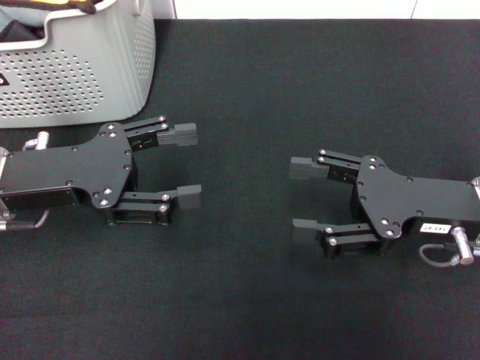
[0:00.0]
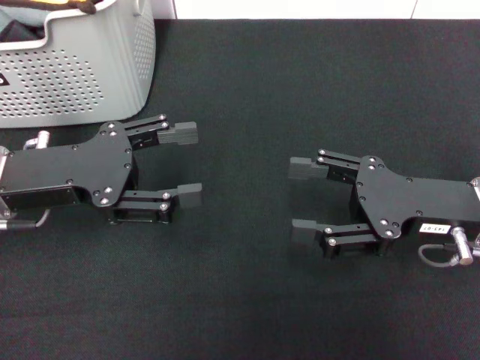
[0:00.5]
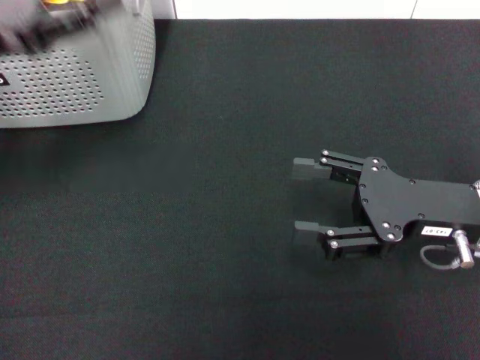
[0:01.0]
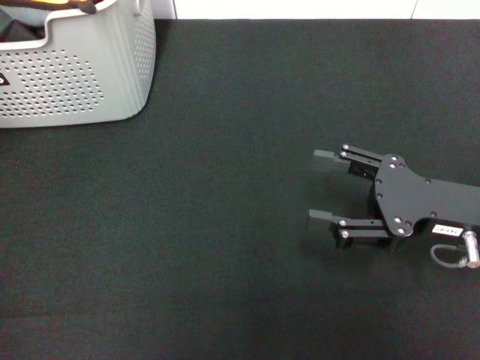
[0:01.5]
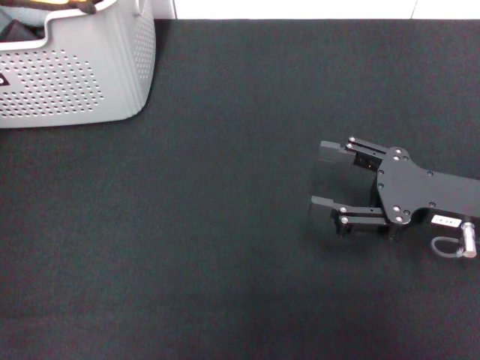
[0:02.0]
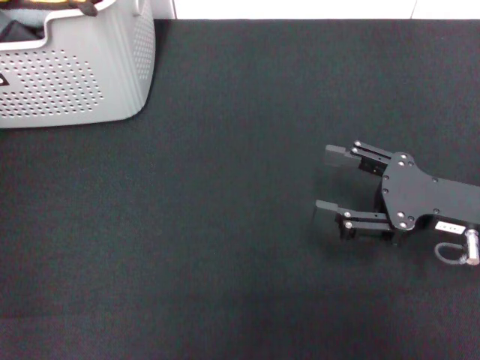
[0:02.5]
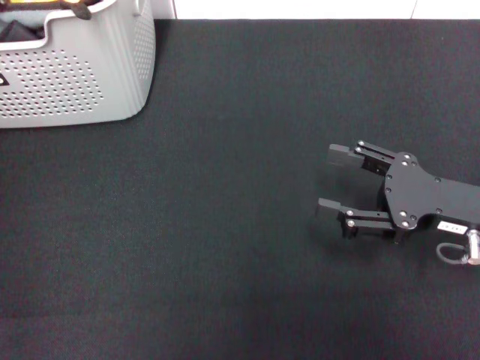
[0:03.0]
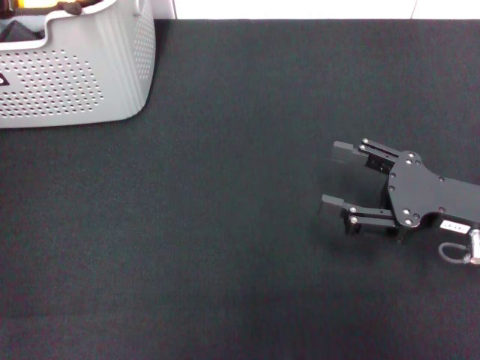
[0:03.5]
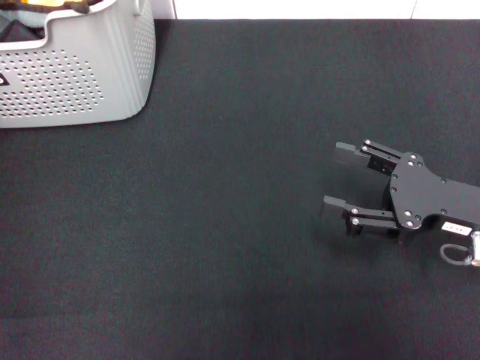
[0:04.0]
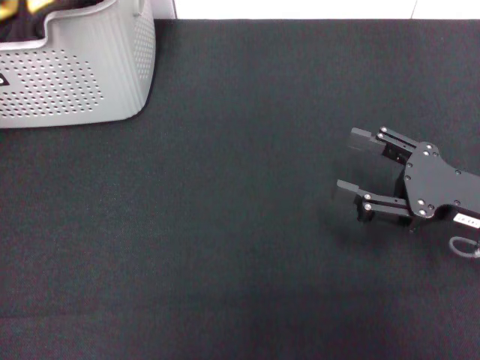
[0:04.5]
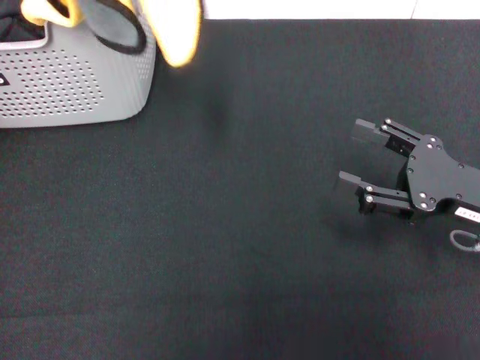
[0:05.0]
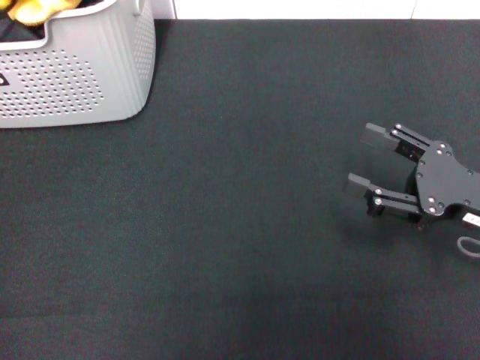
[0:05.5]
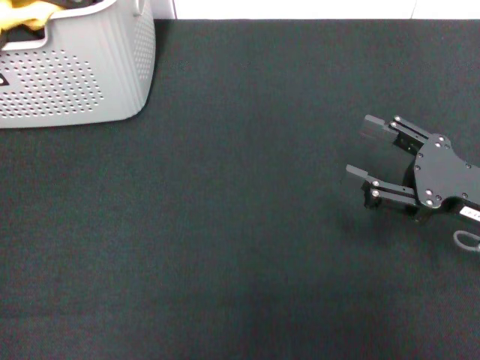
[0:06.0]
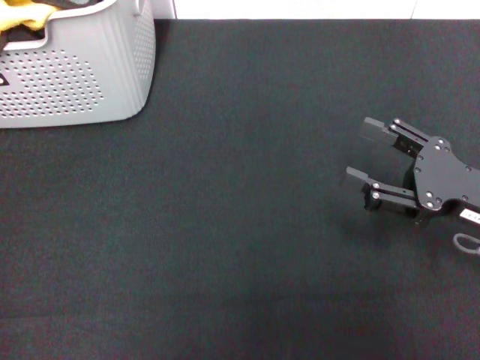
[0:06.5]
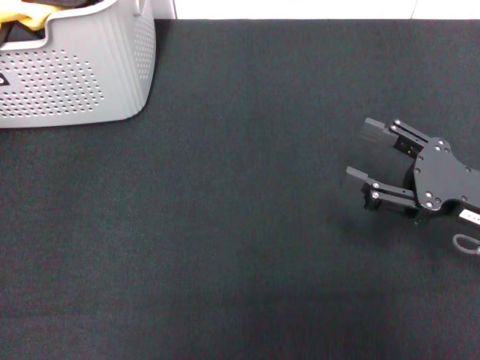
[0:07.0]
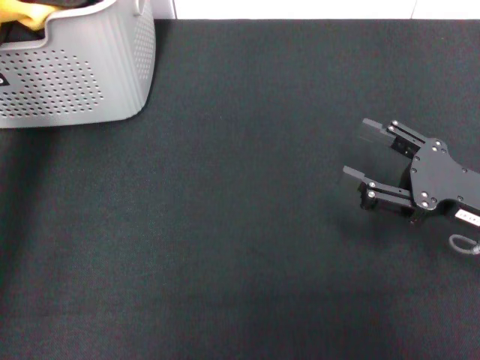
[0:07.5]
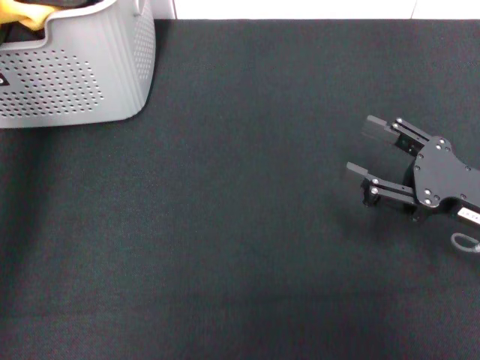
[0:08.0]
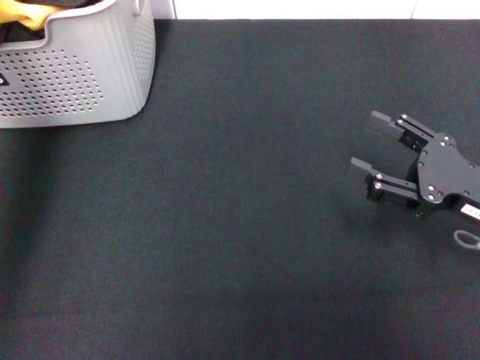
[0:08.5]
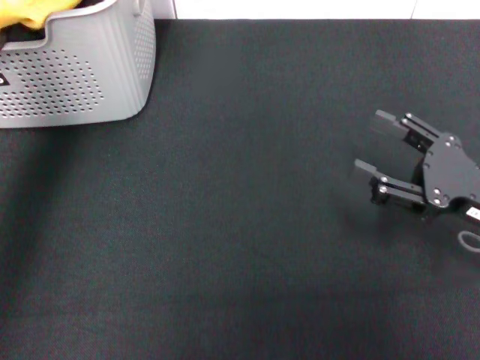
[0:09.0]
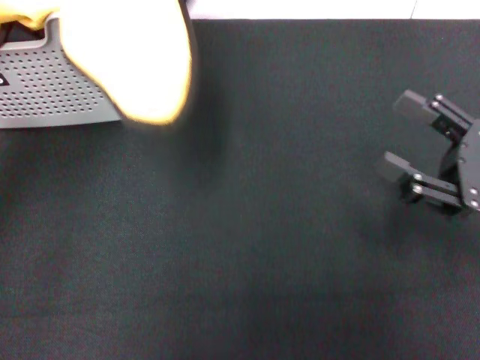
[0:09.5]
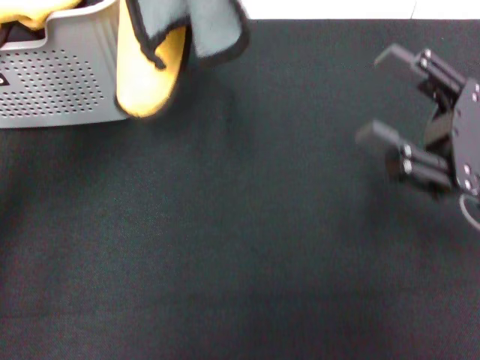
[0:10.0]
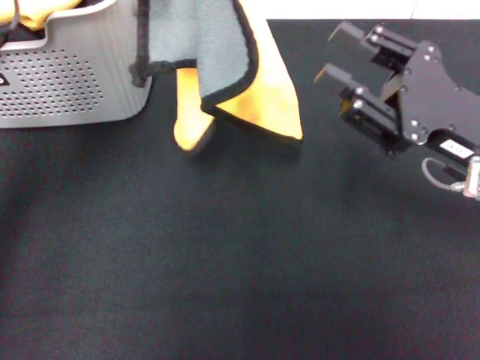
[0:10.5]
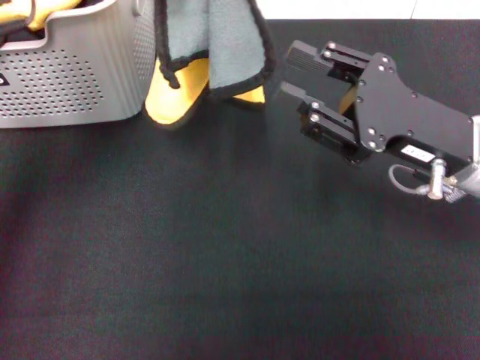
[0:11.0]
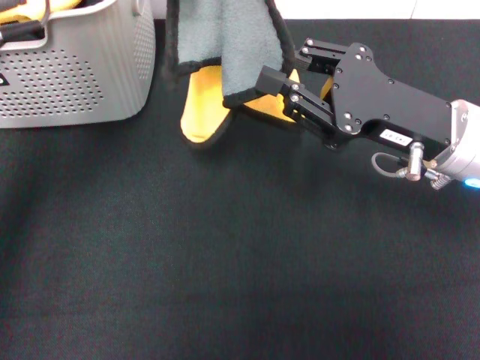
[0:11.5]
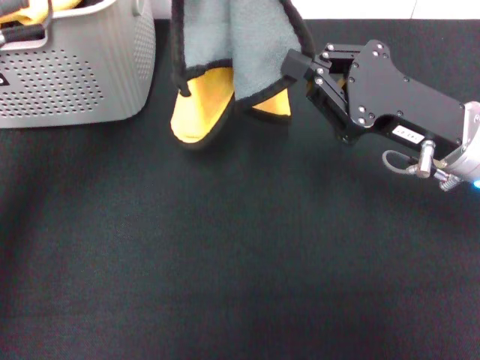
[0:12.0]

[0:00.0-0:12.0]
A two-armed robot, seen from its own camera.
Task of the whole recording: pick up the towel from the storage box and lay it flat on the black tablecloth.
Step, 0:00.0 to 0:04.0: Pick up a towel with the left gripper.
0:00.0 to 0:02.0: The left gripper is displaced upward, forward and to the left by some 20 cm.
0:02.0 to 0:04.0: The left gripper closes its fingers.
0:06.0 to 0:08.0: The left gripper moves to the right, some 10 cm, and opens up.
0:08.0 to 0:10.0: The left gripper heads upward, backward and to the right, covering roughly 10 cm, and closes up.
0:10.0 to 0:12.0: The right gripper is displaced to the left by some 5 cm, and closes its fingers.

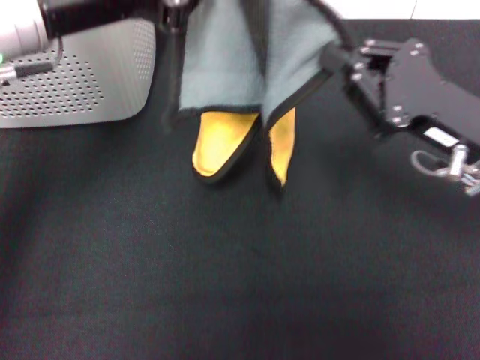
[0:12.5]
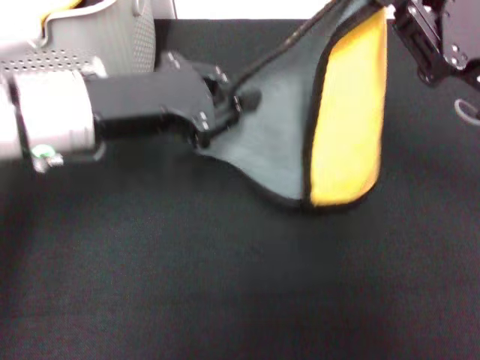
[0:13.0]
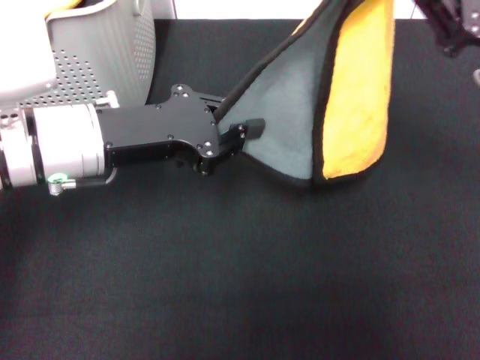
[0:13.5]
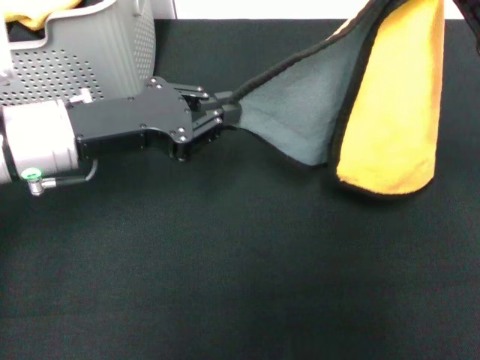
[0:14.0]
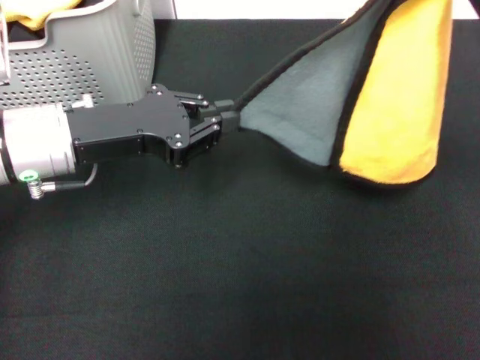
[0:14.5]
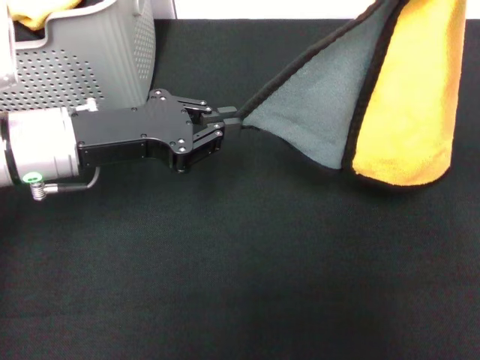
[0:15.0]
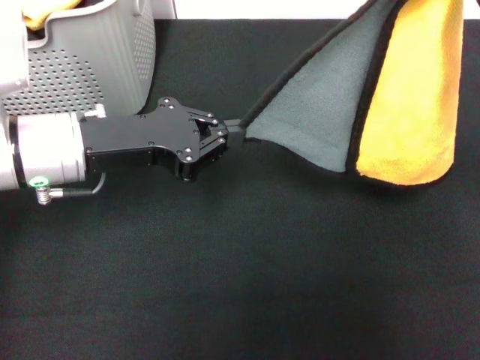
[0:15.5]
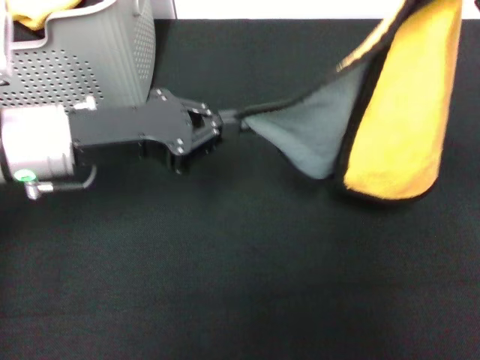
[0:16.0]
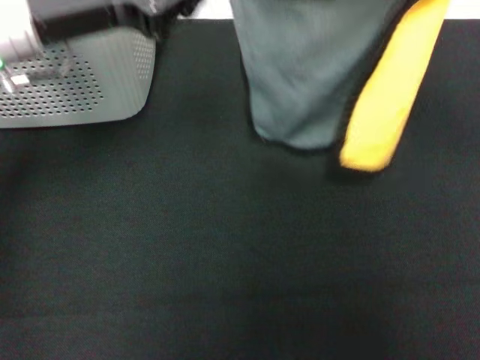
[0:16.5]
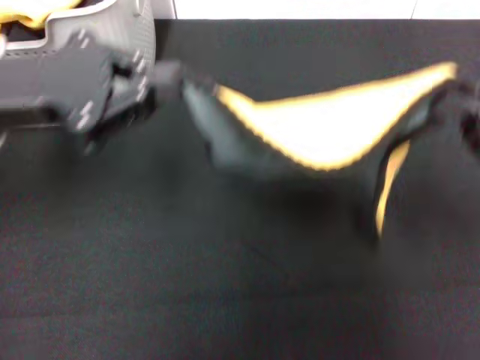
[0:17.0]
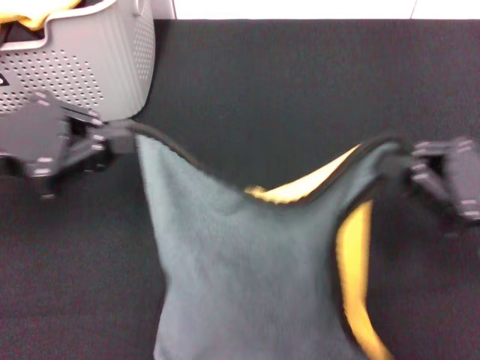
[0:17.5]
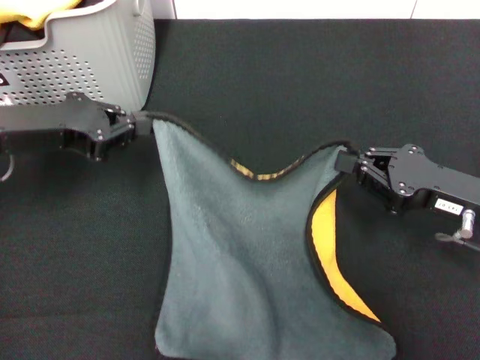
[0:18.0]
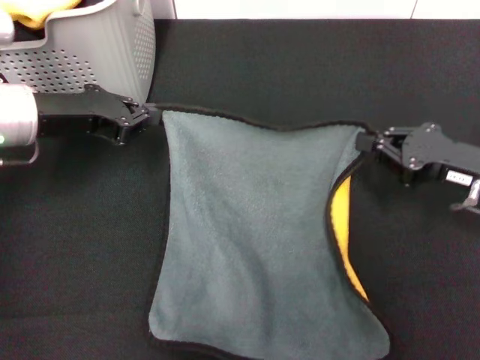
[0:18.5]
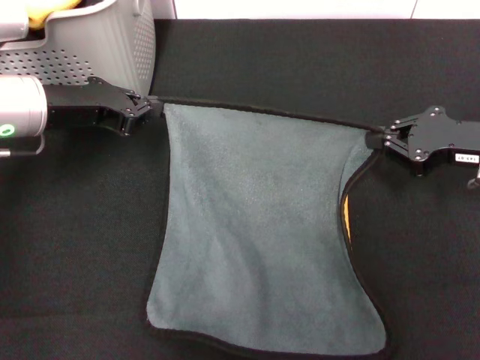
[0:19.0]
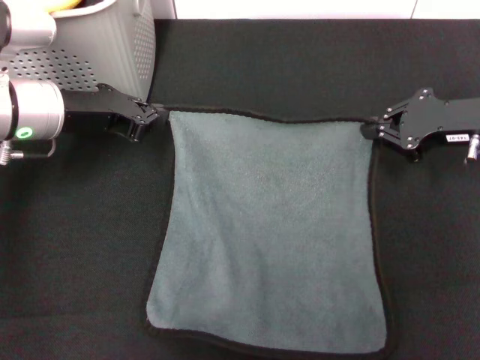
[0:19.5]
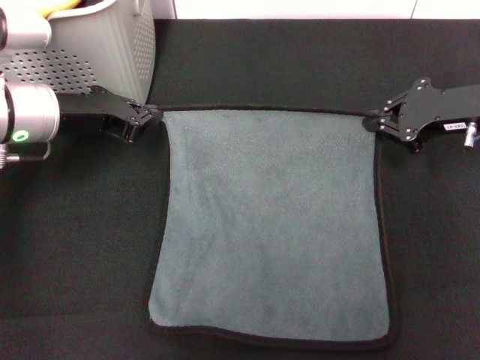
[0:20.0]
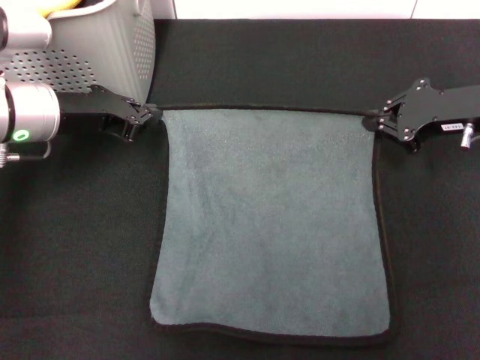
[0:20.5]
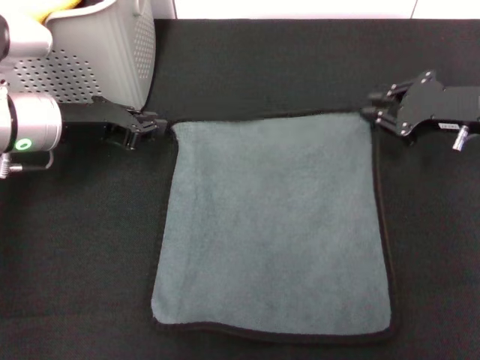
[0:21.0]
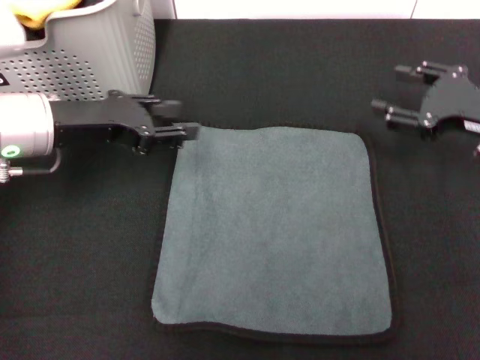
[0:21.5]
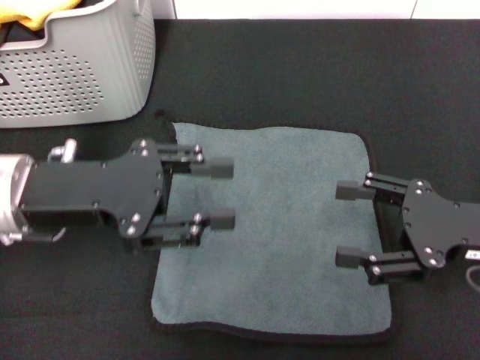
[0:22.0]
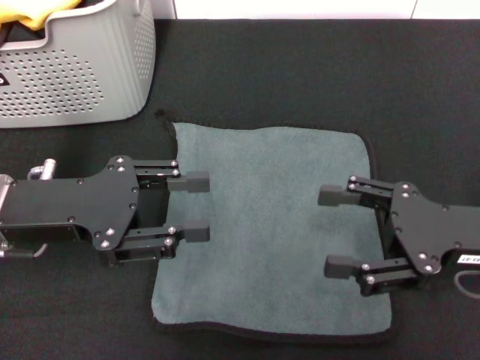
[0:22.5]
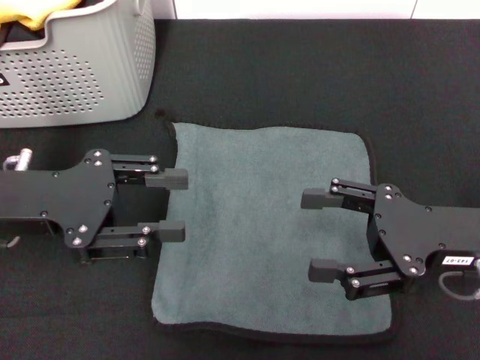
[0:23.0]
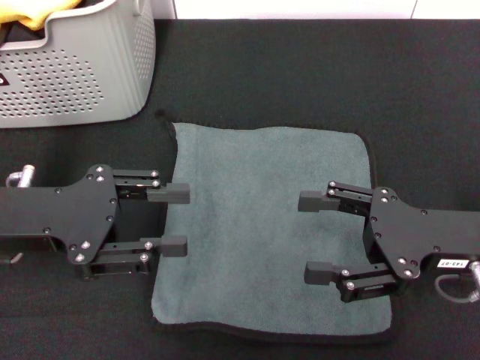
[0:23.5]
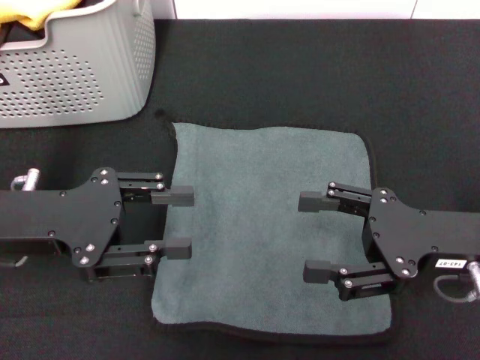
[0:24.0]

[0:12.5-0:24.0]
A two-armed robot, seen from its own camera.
Task of the whole recording: pick up the towel from the storage box and lay it flat on the black tablecloth.
Step, 0:12.5 to 0:21.0: Spread the towel flat with the right gripper.
0:12.5 to 0:14.5: The left gripper heads downward, covering some 10 cm. The right gripper goes about 10 cm to the right and upward.
0:14.5 to 0:16.5: The left gripper heads upward, covering some 5 cm.
0:16.5 to 0:18.5: Both grippers move downward, some 10 cm. The left gripper moves roughly 10 cm backward and comes back.
0:18.5 to 0:20.0: The right gripper is displaced forward by some 10 cm.
0:20.0 to 0:22.0: Both grippers travel together backward, roughly 10 cm. The left gripper opens up. The right gripper opens up.
0:22.0 to 0:24.0: There are only small adjustments of the grippers.
